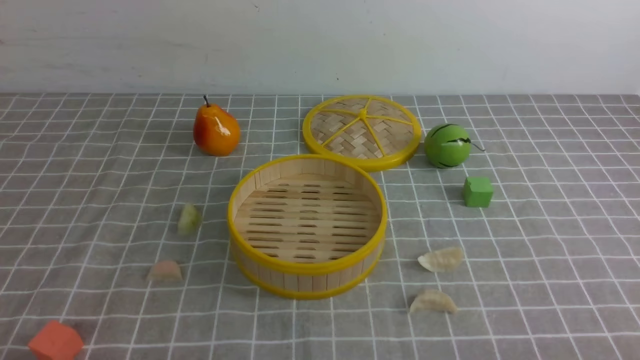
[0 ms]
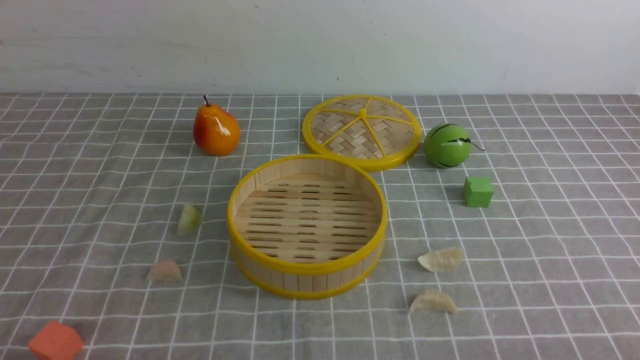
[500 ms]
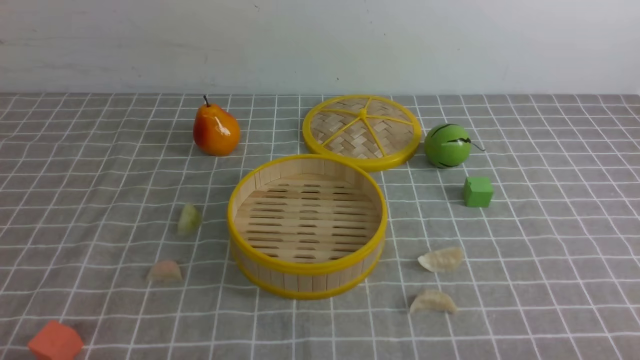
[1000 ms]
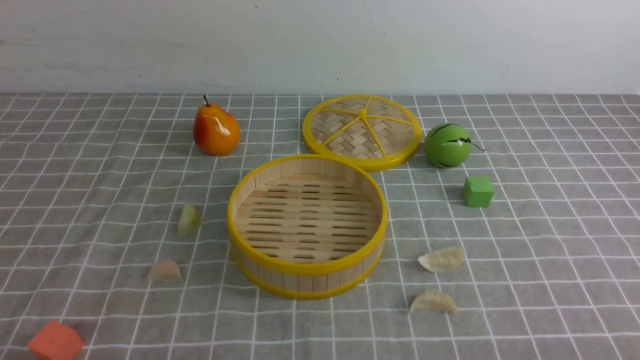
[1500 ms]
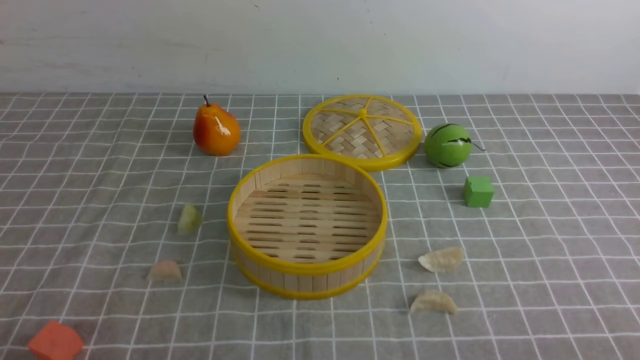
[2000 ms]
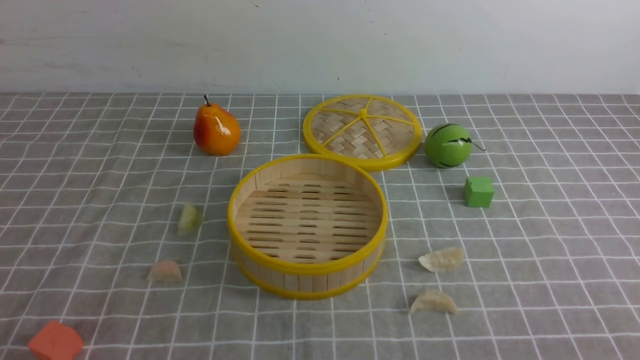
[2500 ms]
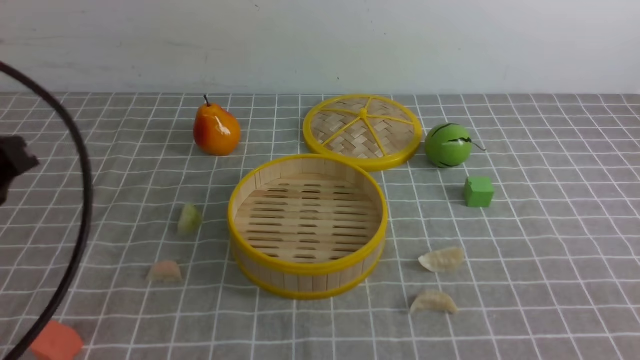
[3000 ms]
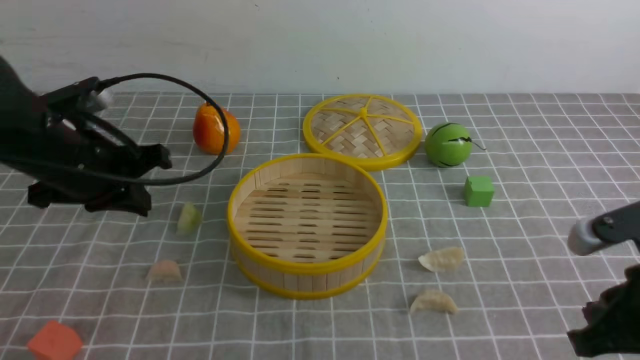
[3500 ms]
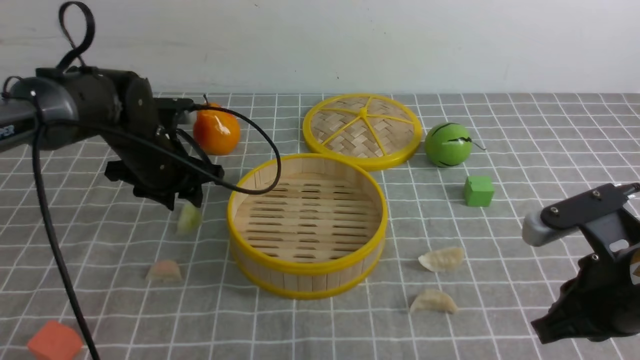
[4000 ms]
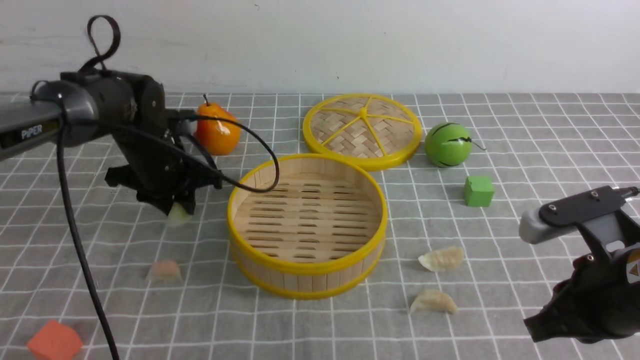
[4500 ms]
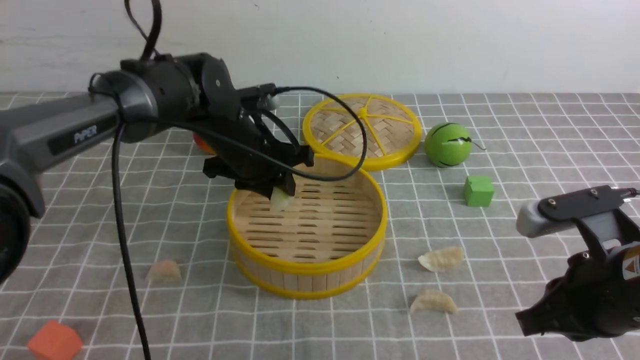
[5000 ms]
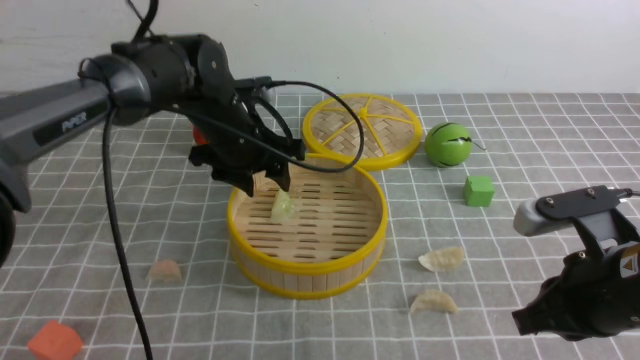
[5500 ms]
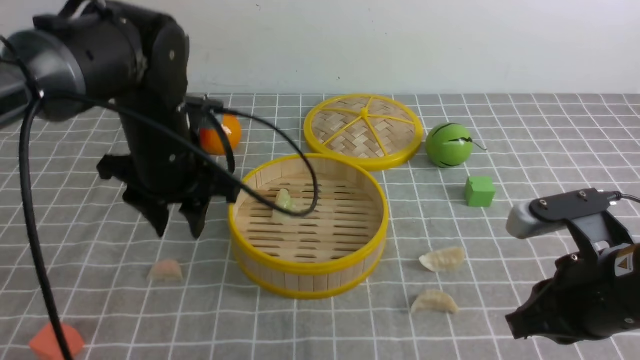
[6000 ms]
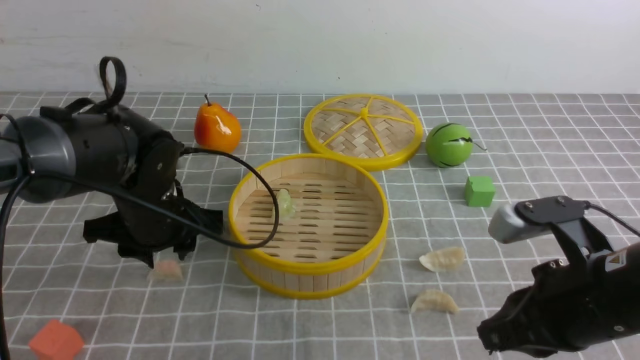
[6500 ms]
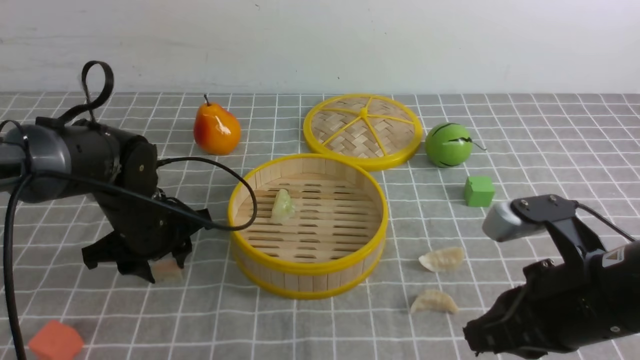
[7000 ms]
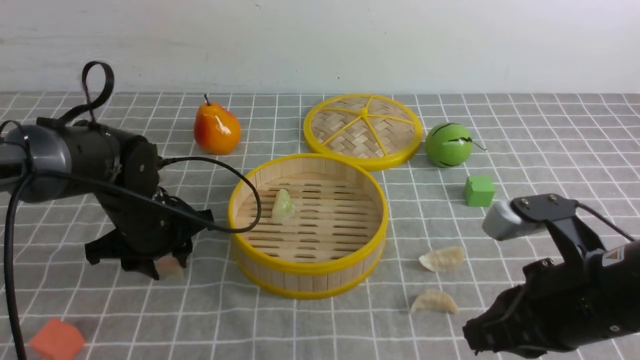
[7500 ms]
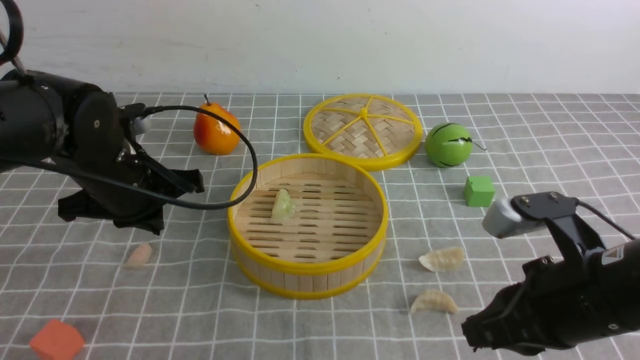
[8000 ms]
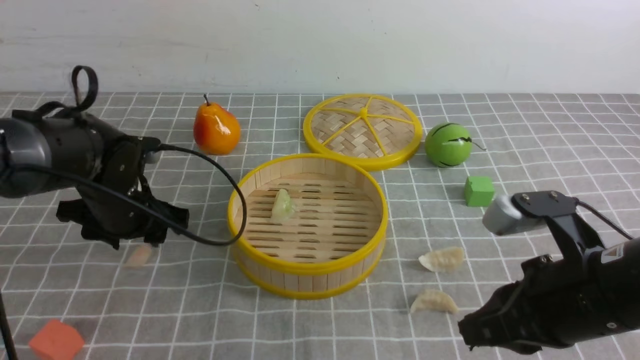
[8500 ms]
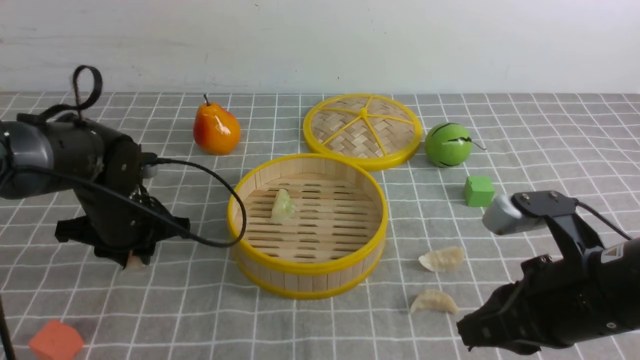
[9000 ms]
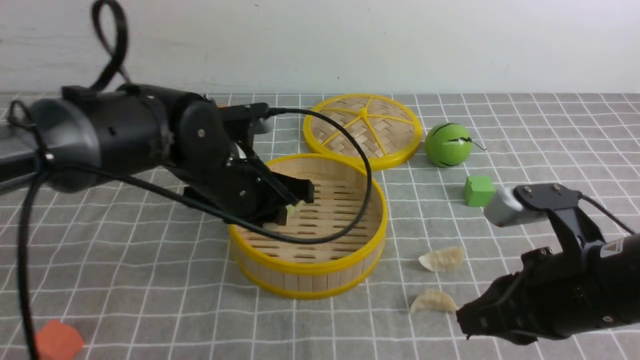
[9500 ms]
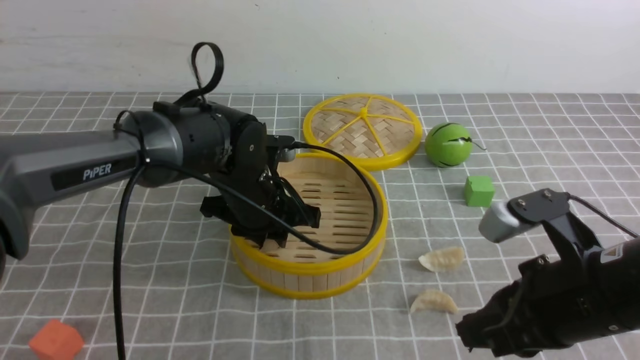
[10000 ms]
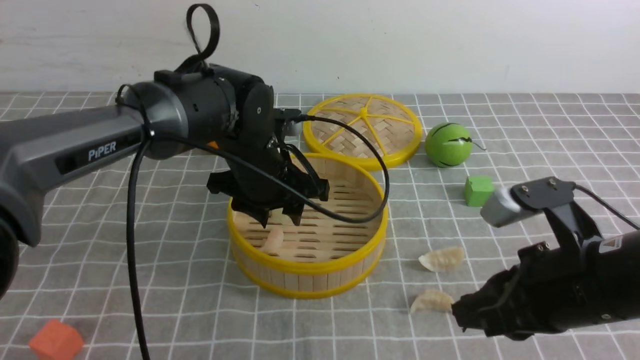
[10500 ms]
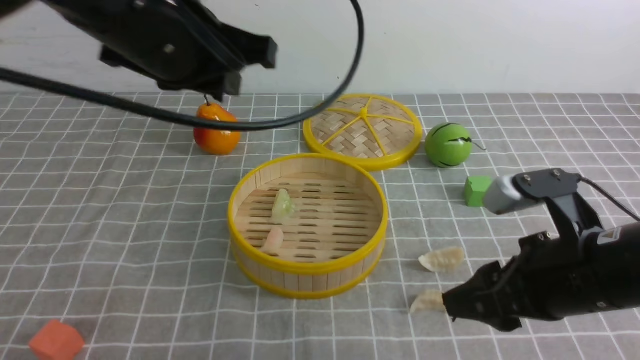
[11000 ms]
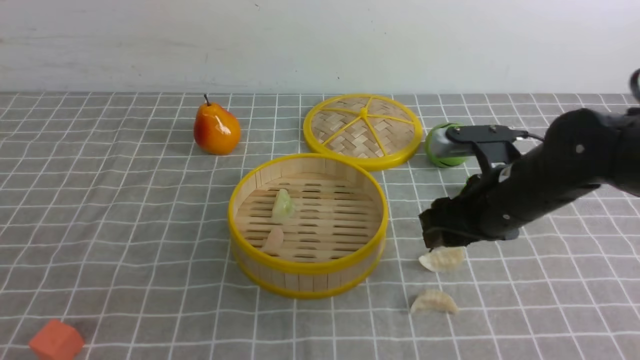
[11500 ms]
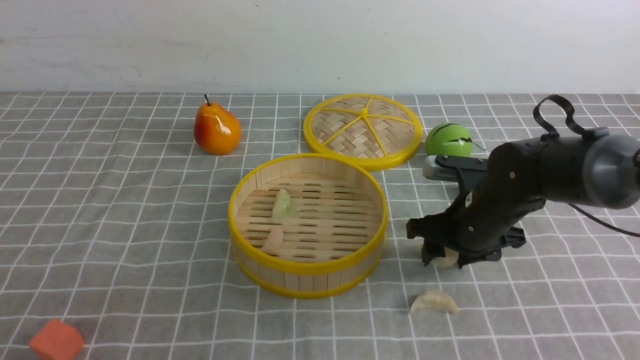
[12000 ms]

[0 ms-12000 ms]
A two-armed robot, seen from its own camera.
Task of the whole recording: put the dumplings into the steamer on the table with the grey tablecloth.
Step, 0 ms to 4500 ms: use the left arm to grab a dumpling.
Step, 5000 ms to 5500 ms: use the left arm to put the dumpling into the steamer.
Step, 6000 ms to 9000 ms: use the left arm to grab a dumpling.
Step, 9500 ms to 10500 ms: use the left arm to put the dumpling into the steamer.
2000 ms to 4000 ms: The left gripper is displaced forward by some 35 cm, and closes, then reopens. Meanwhile the right gripper travels forward and to the left by approximately 15 cm, and closes its fingers.
4000 ms to 6000 ms: The left gripper goes some 10 cm backward, upward and to the right.
6000 ms to 8000 ms: The left gripper goes approximately 5 cm to the left, moves some 10 cm downward and comes back, and closes up.
8000 ms to 10000 ms: The left gripper goes approximately 15 cm to the right, and opens.
10000 ms to 12000 ms: The right gripper moves forward and downward, about 20 cm, and opens; the left gripper heads backward and to the left, covering some 40 cm, and closes.

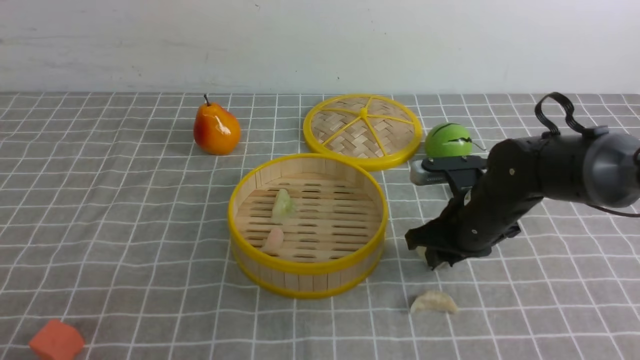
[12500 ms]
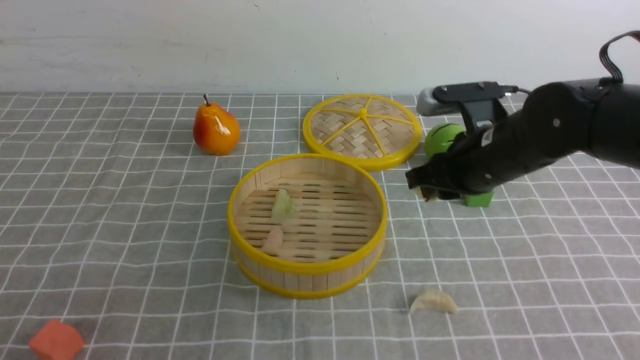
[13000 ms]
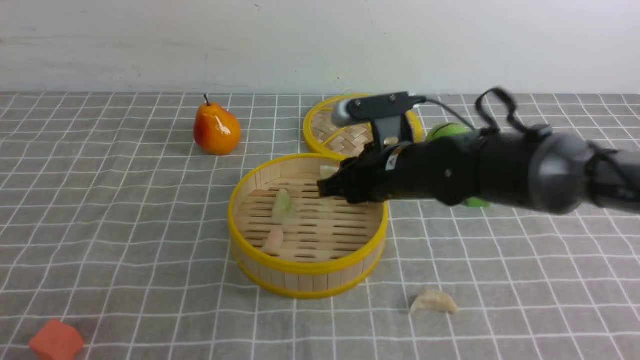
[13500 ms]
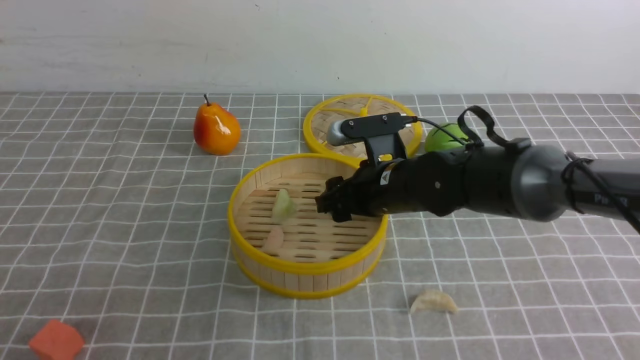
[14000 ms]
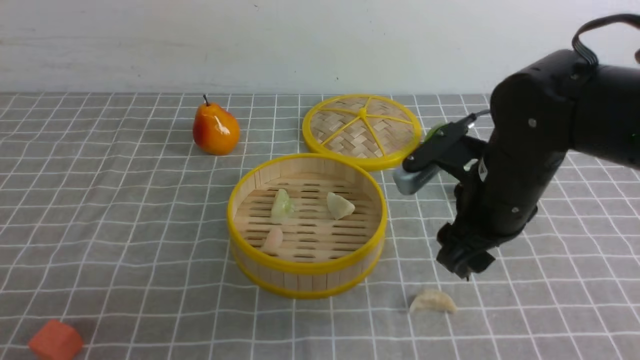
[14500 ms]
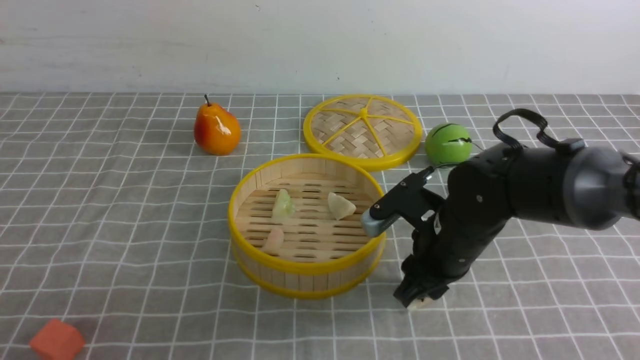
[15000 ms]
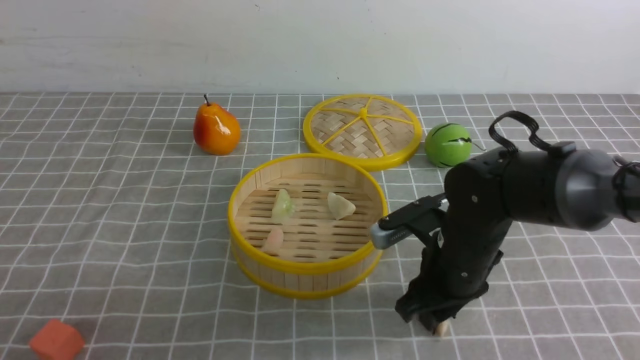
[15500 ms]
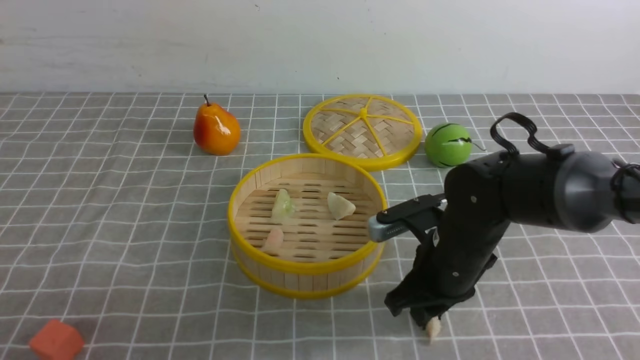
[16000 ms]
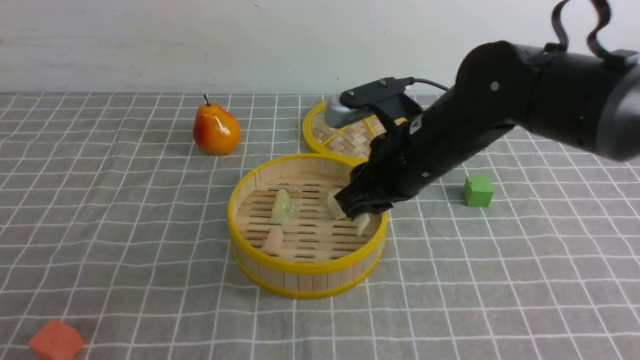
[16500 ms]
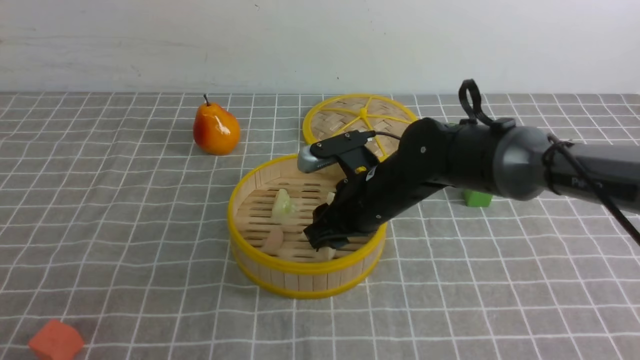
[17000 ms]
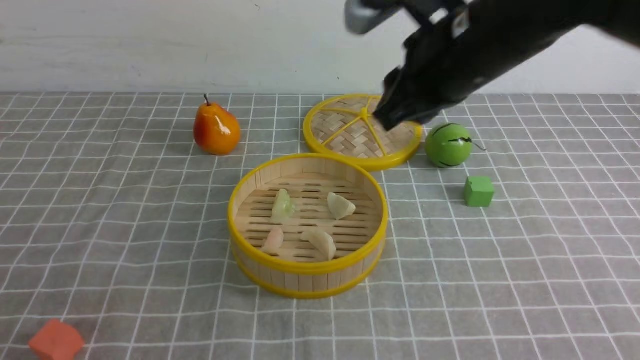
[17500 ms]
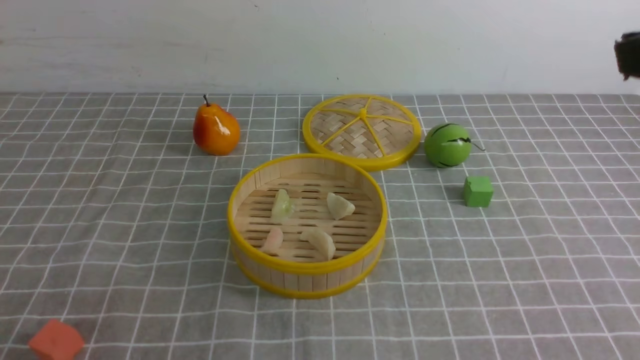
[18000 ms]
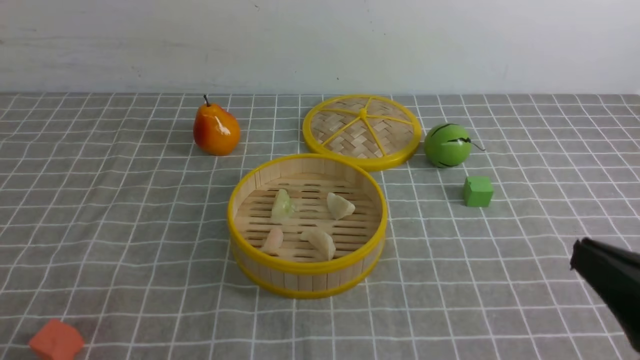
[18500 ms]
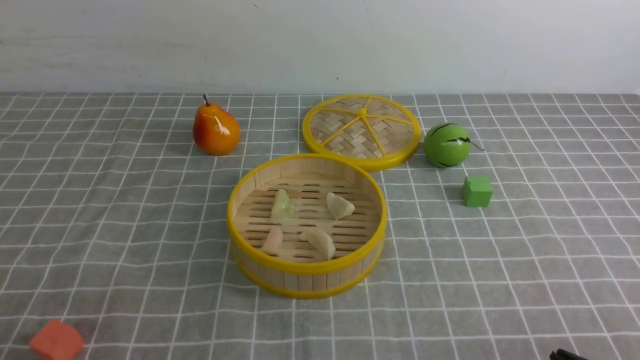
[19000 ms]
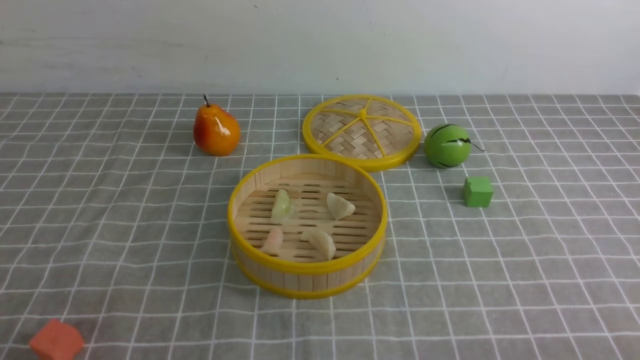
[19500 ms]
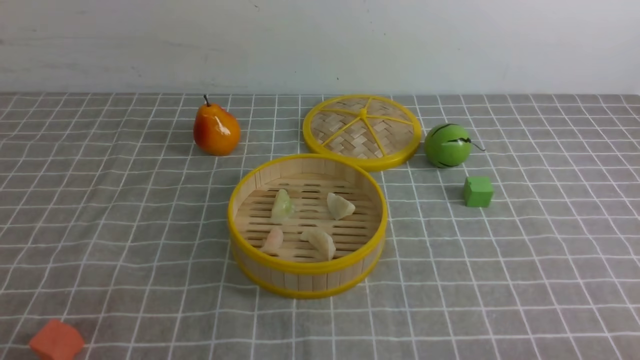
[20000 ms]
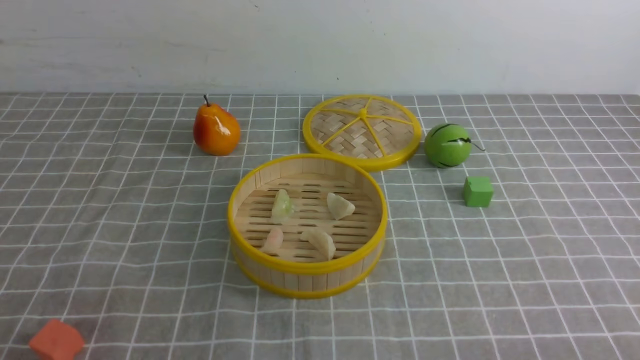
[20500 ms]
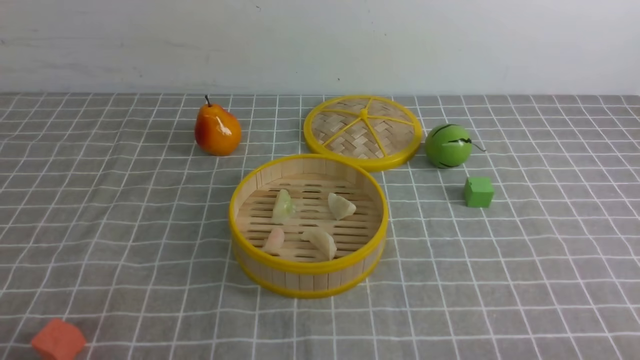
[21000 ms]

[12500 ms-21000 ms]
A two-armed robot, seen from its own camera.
Task of the whole recording: put the dumplings into the steamer on the table with the grey tablecloth.
Step, 13000 ms to 14000 ms: use the right arm to put the dumpling into the steamer.
Step, 14500 ms to 16000 ms: use the right arm to grab a dumpling.
Step, 16500 ms to 17000 ms: use the right arm to put the dumpling into the steamer.
12500 ms to 14500 ms: The right gripper heads upward and backward, covering some 10 cm, reaches some 10 cm to the left, then returns, and opens its fingers.
14500 ms to 16500 ms: The right gripper travels to the left by some 5 cm, goes downward and returns, some 10 cm each way, and closes its fingers.
16500 ms to 19000 ms: The right gripper goes roughly 30 cm backward and to the right, and closes up.
